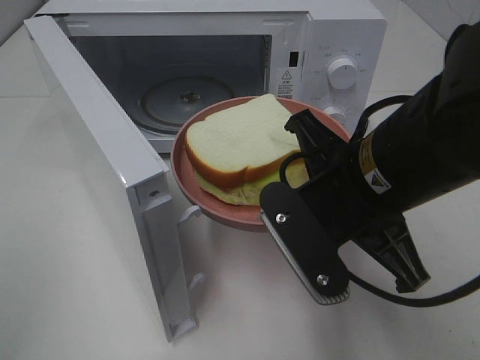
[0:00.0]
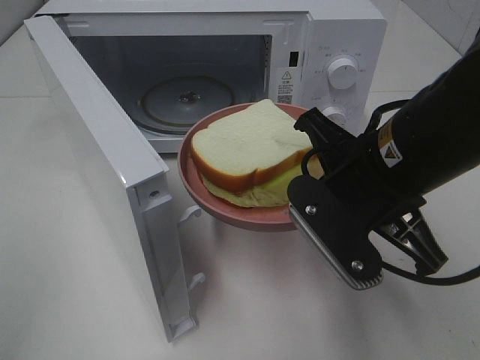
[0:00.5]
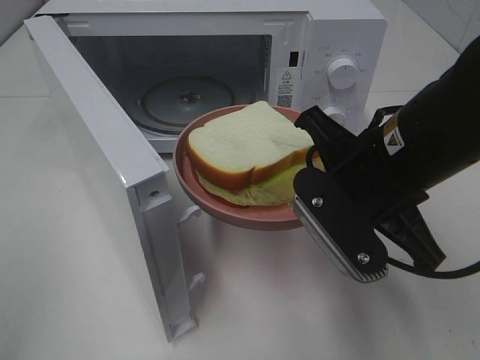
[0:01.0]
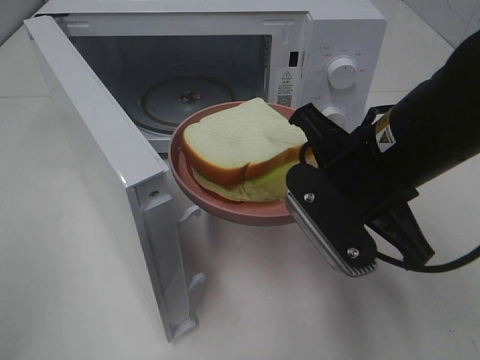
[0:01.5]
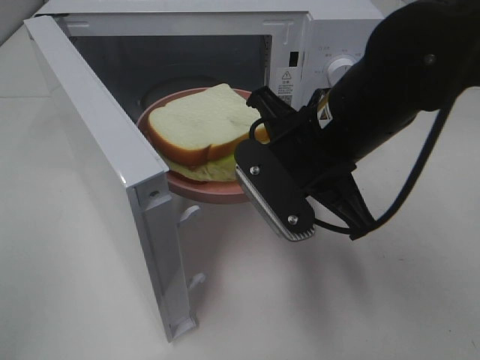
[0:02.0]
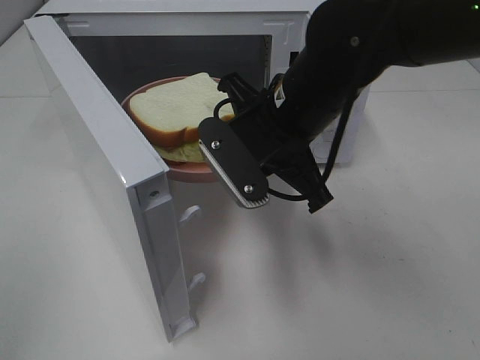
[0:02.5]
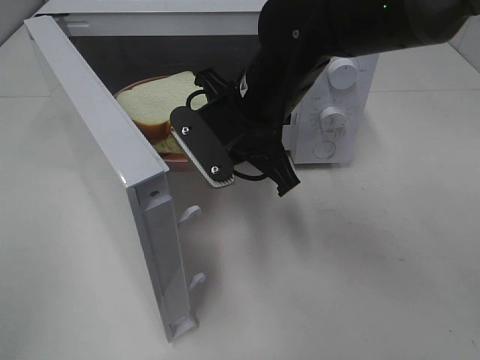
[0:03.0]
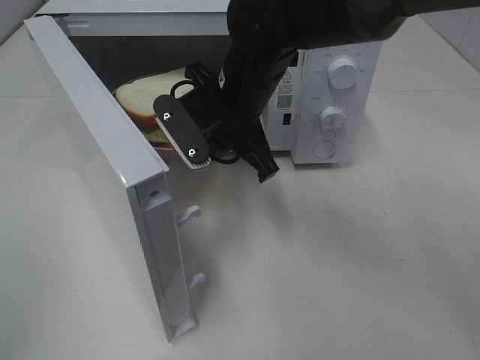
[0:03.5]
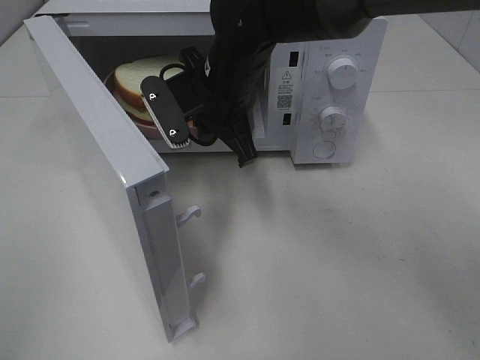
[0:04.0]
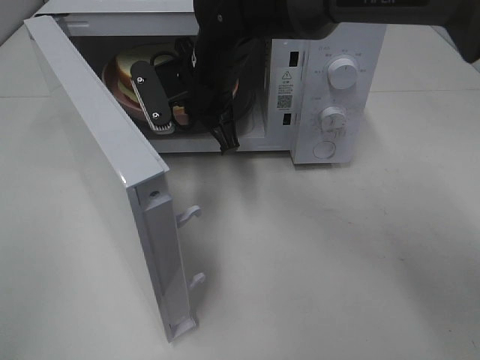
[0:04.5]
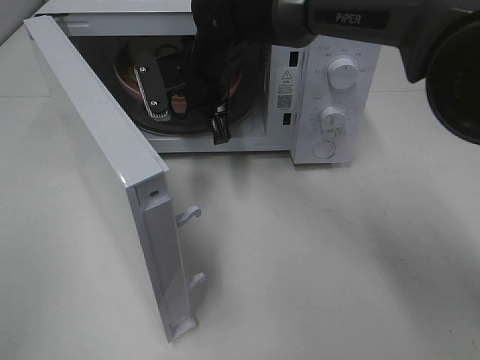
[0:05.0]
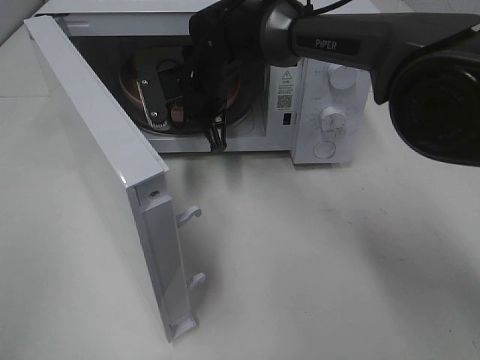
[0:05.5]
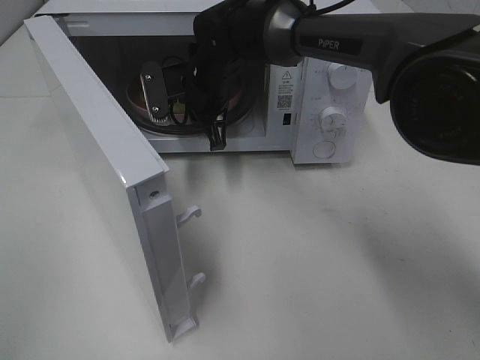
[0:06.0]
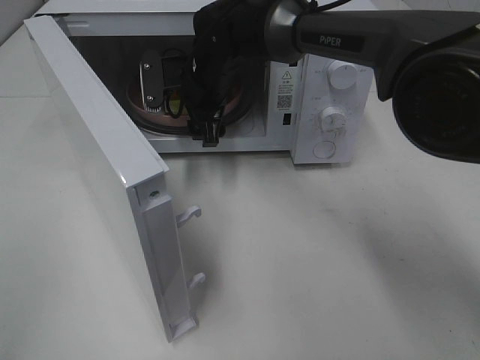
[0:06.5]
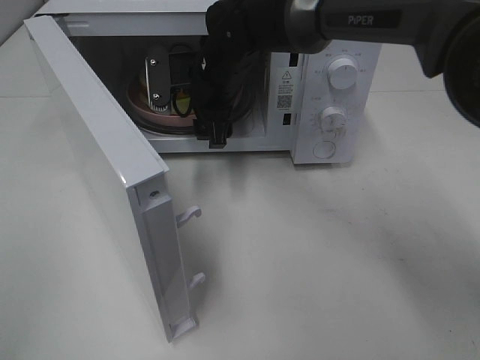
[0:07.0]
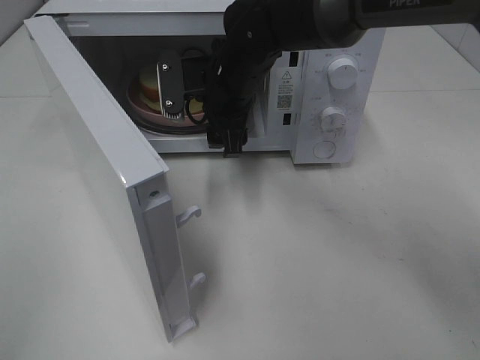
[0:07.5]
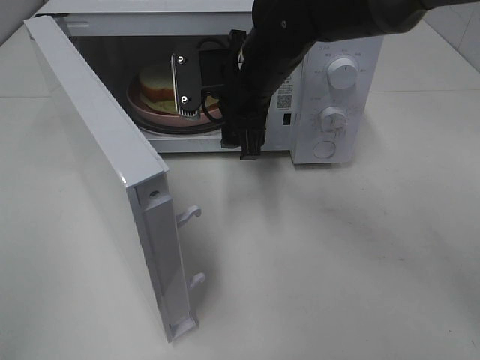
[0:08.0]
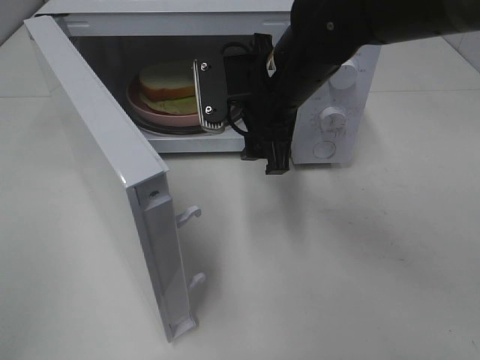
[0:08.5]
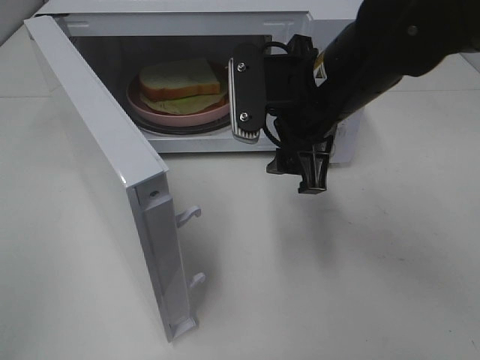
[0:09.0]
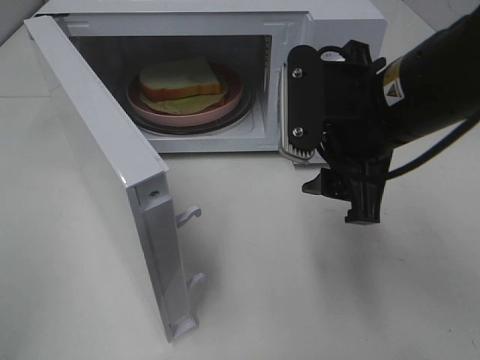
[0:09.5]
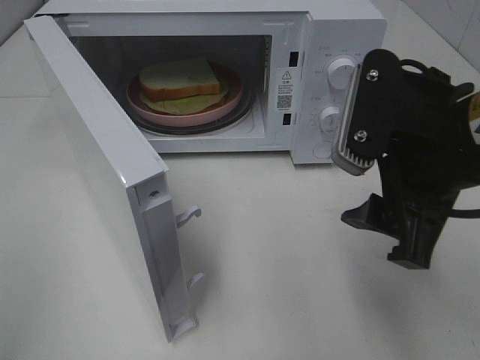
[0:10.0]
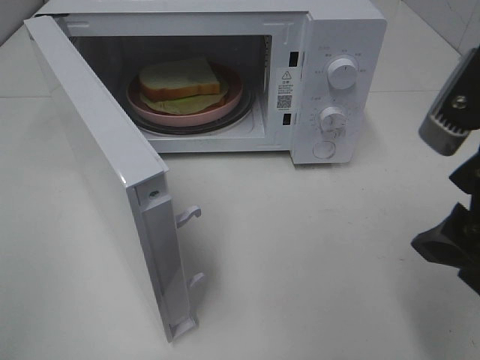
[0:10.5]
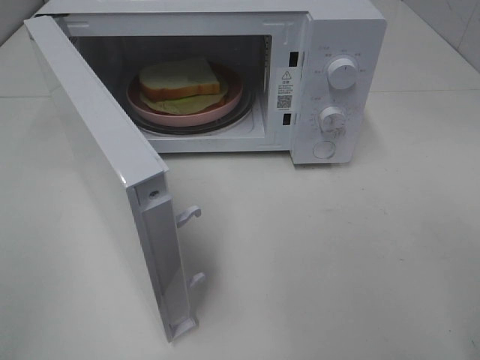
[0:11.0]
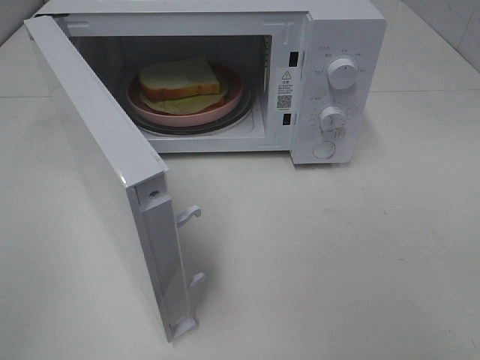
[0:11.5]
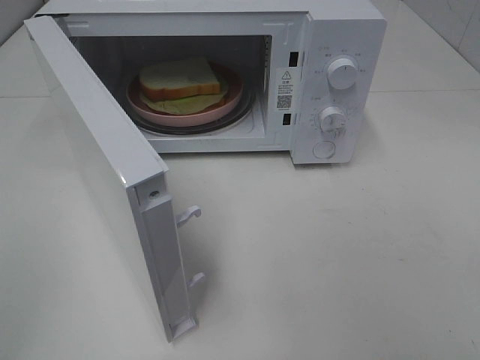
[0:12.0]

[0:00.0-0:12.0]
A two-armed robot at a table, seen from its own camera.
Task of the whole recording: Heat Sandwich.
Step, 0.0 to 6.5 s: Right hand: place the plate in the microwave.
0.0 to 2.0 s: The right gripper shifts roughly 5 cm forward.
2.0 to 4.0 s: The right gripper is displaced forward and to the left by roughly 15 cm.
4.0 to 6.0 s: The right gripper goes roughly 10 cm forward.
6.0 to 8.0 s: The right gripper shifts approximately 10 cm backward and to the right, and opens.
8.0 to 10.0 s: The right gripper travels backward and to the right by roughly 20 cm.
10.0 to 12.0 s: The right gripper goes roughly 20 cm backward and to the right.

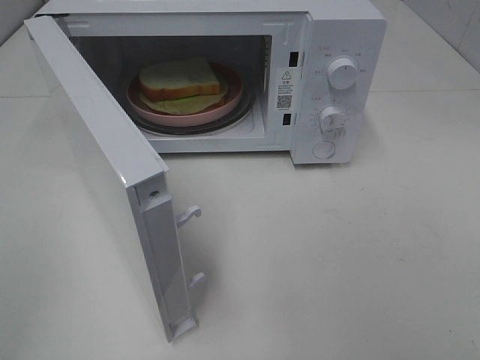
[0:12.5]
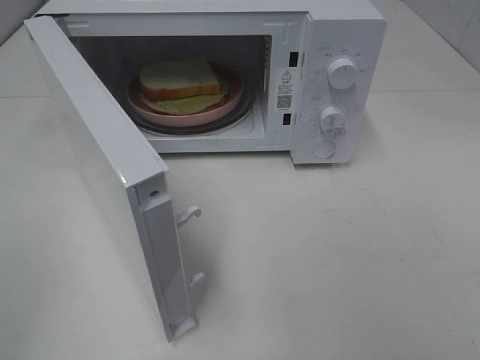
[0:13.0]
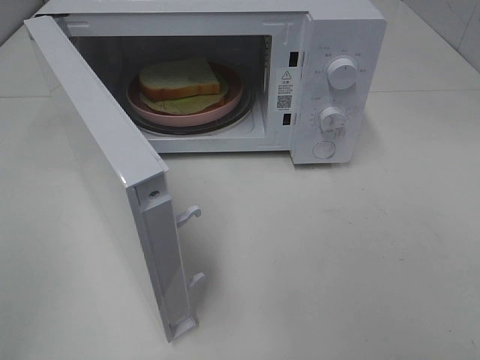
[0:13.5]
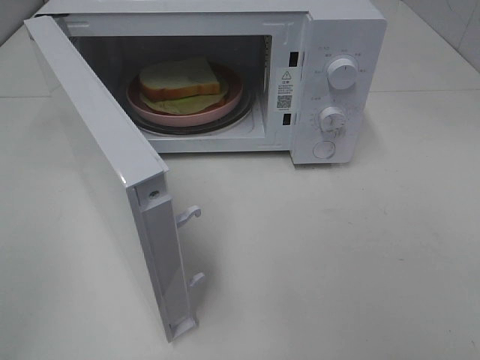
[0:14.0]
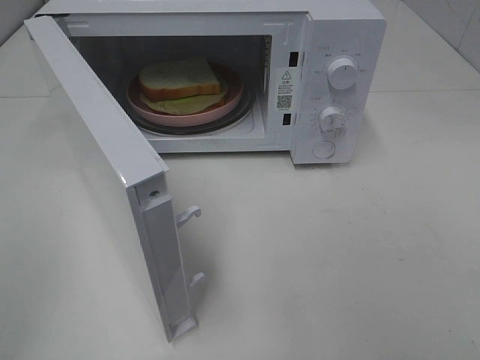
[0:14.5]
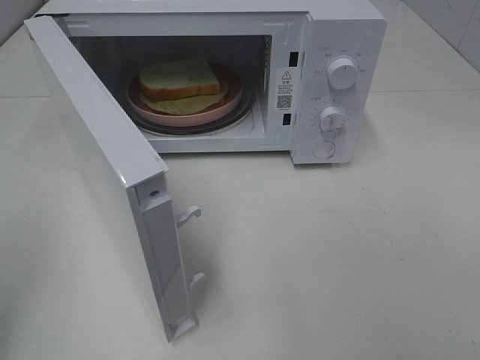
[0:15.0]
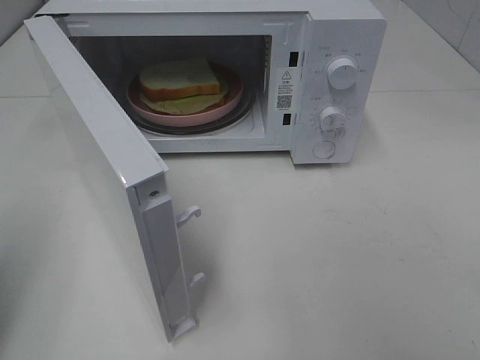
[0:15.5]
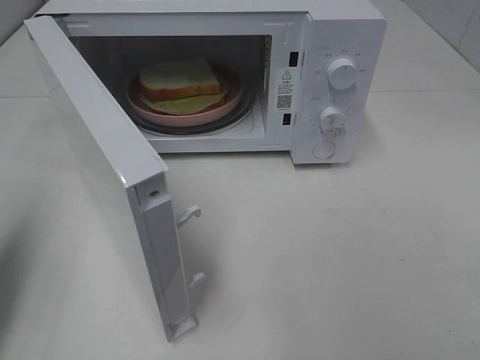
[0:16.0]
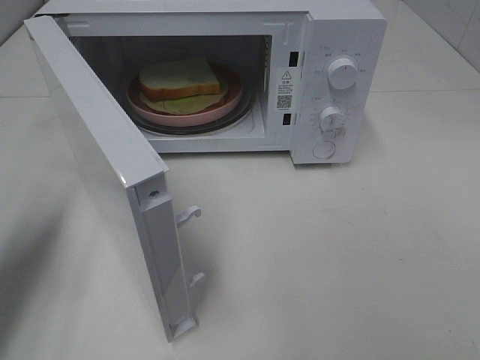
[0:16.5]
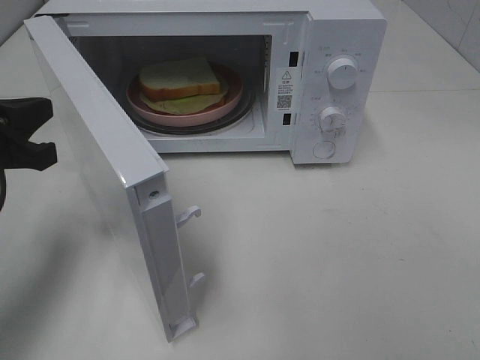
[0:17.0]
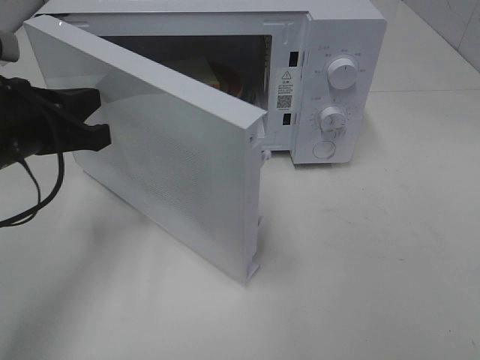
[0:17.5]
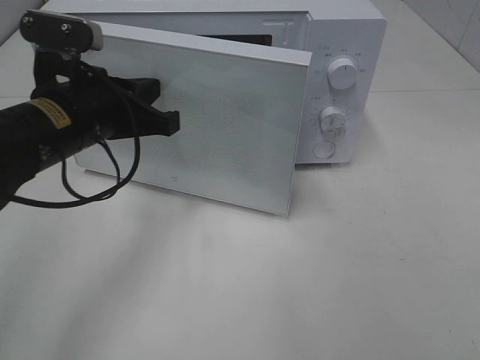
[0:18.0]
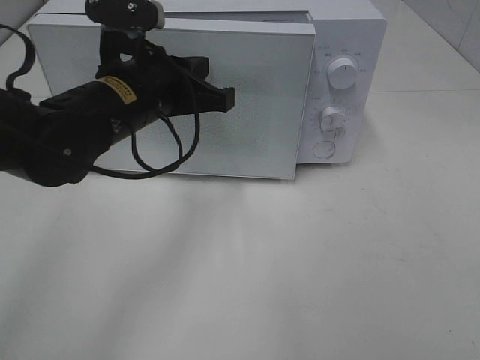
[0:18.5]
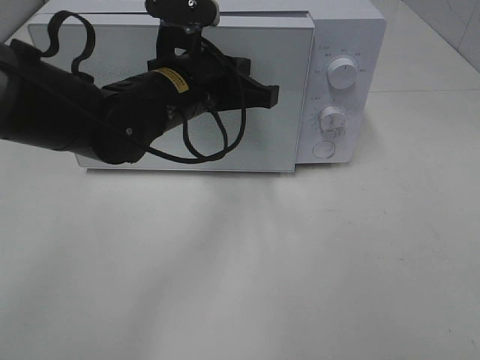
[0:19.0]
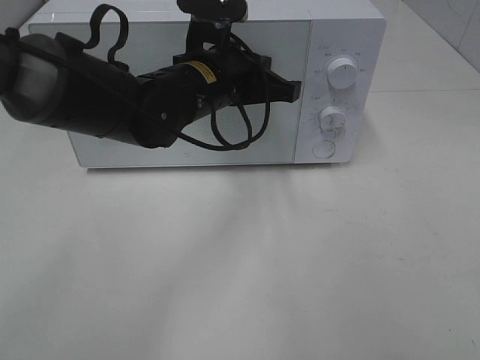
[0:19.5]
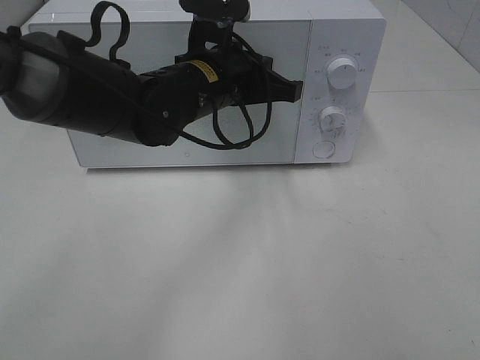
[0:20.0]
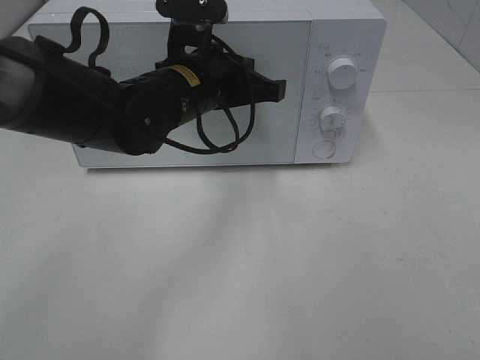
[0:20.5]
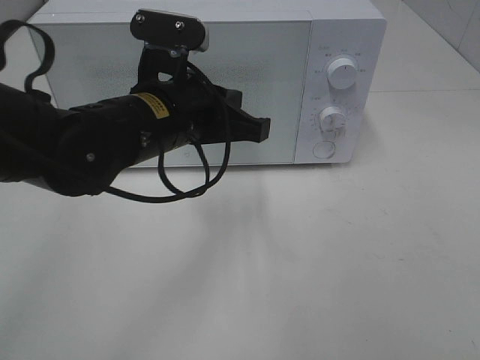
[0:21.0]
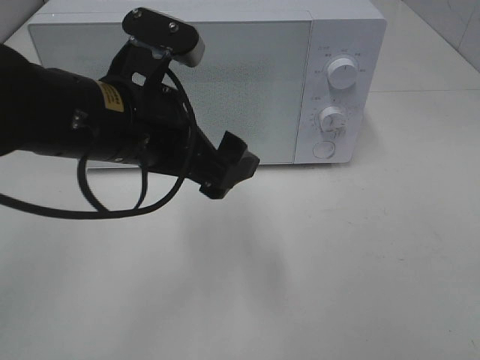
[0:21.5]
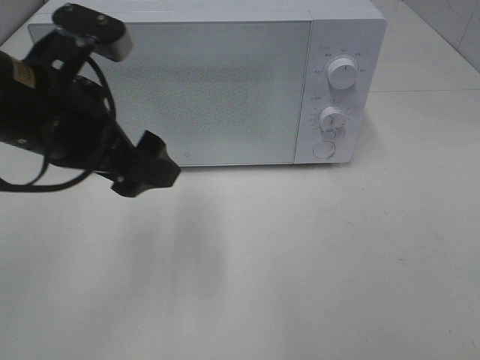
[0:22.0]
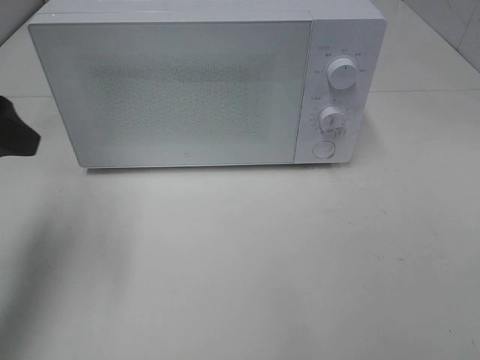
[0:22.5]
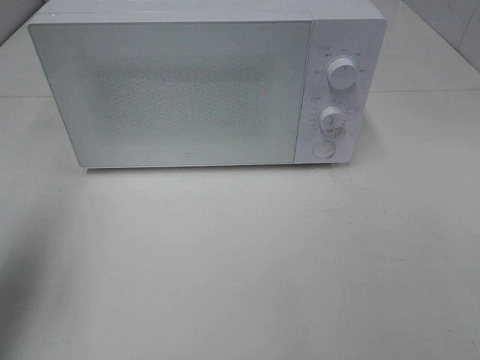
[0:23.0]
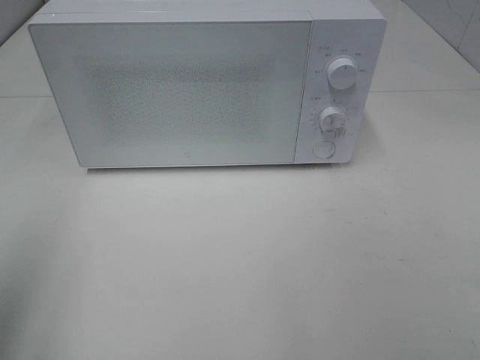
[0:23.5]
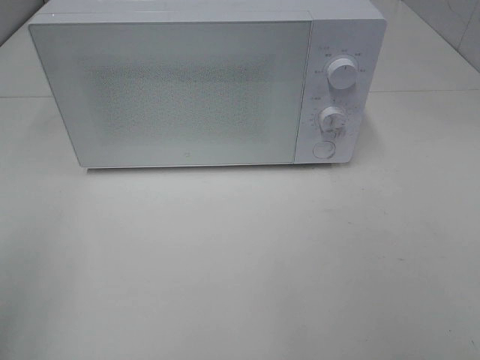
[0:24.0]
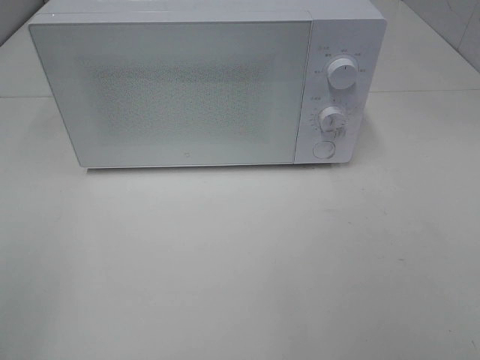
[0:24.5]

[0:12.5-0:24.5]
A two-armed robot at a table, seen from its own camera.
Task of the whole recording: Heat Sandwich.
Step, 12.5 to 20.5 s: Left hand: close the microwave door.
14.5 to 16.5 s: The left gripper is displaced forward and downward by about 20 cm, and closes.
16.5 to 18.5 s: The left gripper moves to the right and forward, some 25 cm.
18.5 to 20.5 s: The left gripper travels to the right by some 5 cm.
20.5 to 22.5 s: The left gripper is displaced to the left and backward by approximately 25 cm, and opens up.
22.5 to 24.5 s: The left gripper shifts approximately 25 cm backward.

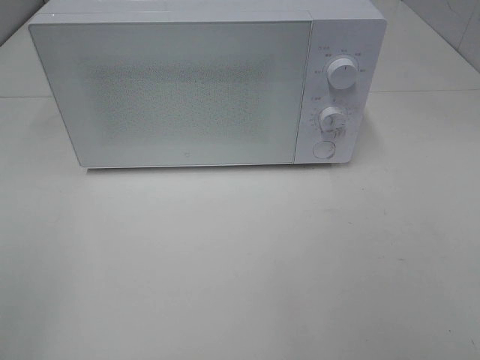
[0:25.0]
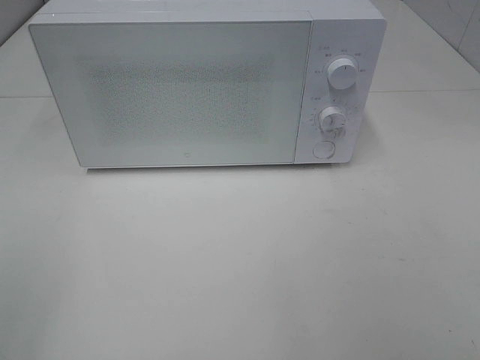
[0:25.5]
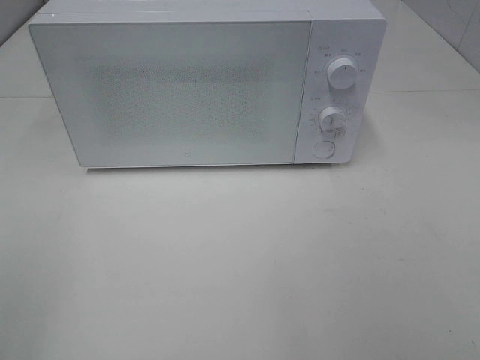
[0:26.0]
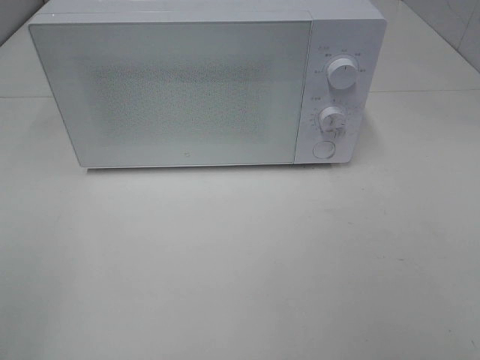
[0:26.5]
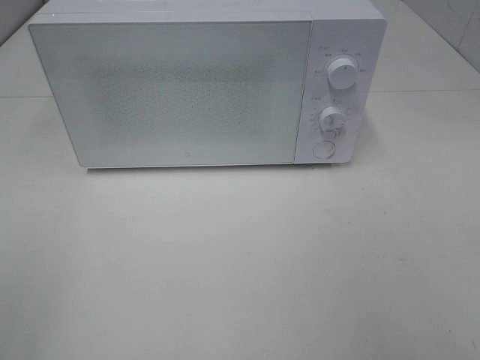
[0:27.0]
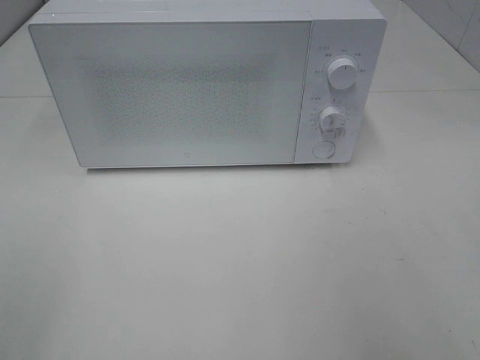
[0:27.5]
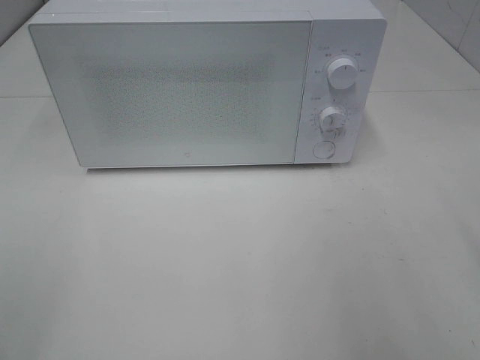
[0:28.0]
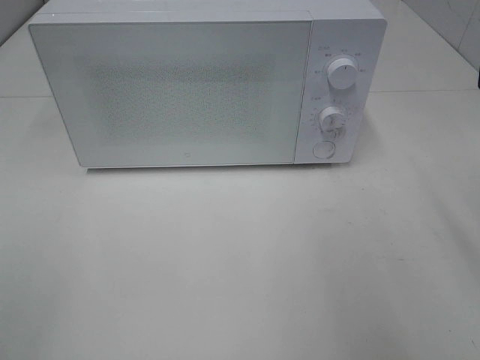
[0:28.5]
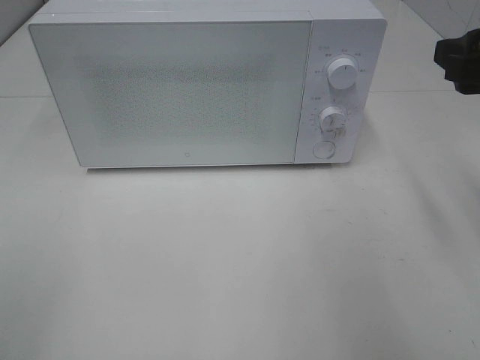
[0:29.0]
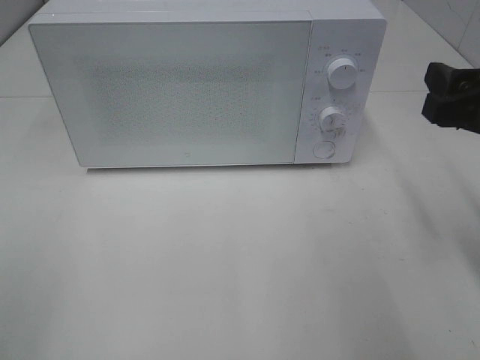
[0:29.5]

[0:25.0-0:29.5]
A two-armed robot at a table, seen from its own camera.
Task of the whole recording: Heat Sandwich.
27.0 to 29.5 s: The right gripper moves forward and downward, roughly 20 cm.
